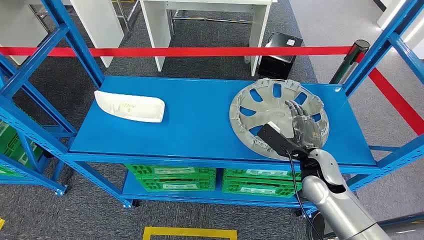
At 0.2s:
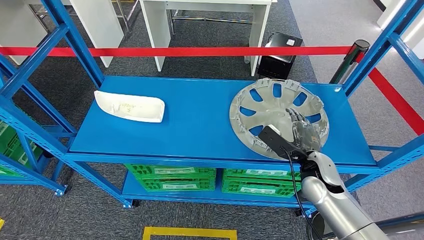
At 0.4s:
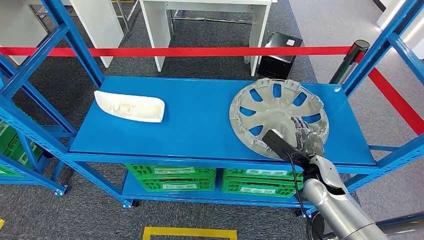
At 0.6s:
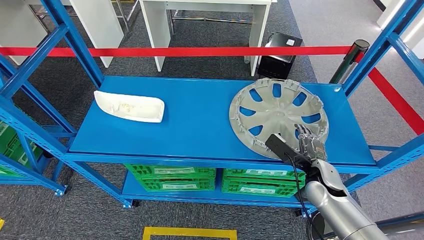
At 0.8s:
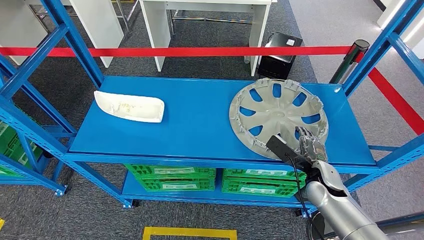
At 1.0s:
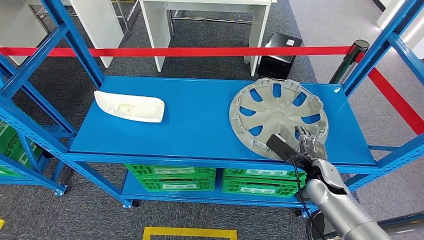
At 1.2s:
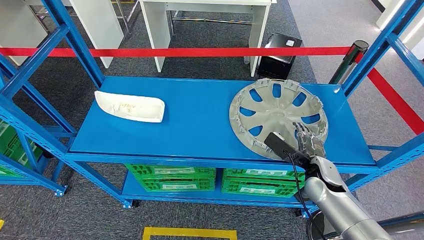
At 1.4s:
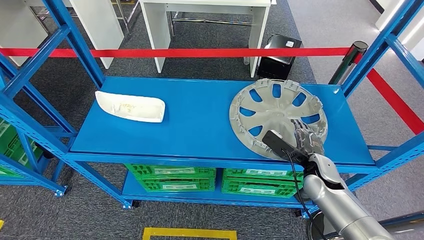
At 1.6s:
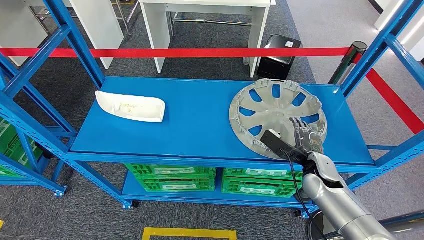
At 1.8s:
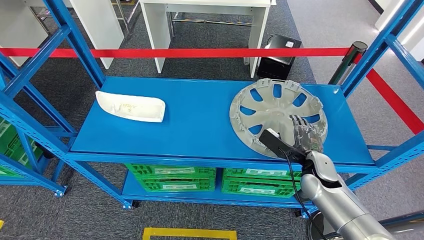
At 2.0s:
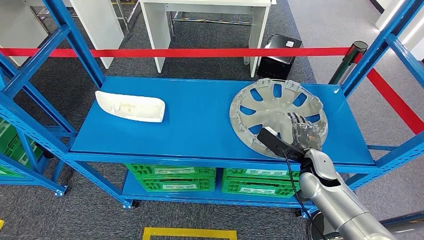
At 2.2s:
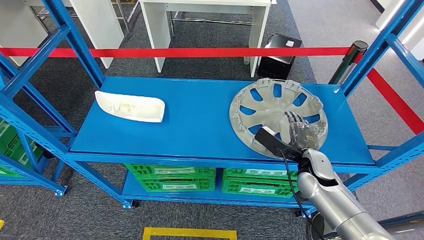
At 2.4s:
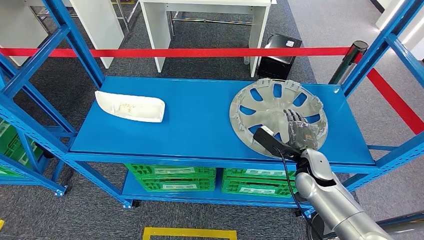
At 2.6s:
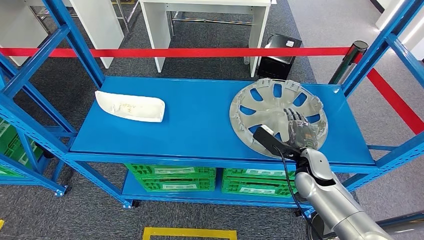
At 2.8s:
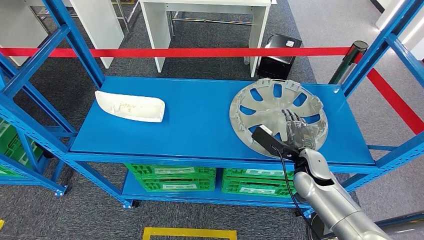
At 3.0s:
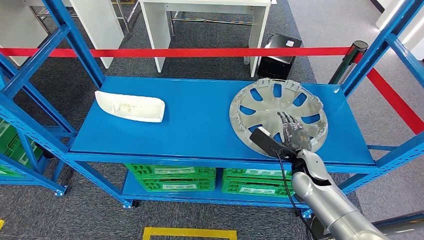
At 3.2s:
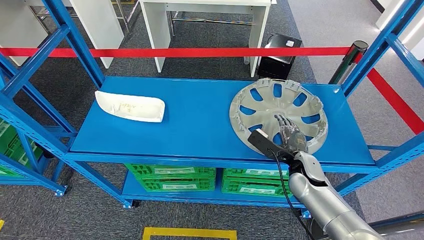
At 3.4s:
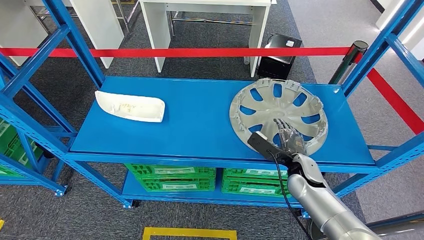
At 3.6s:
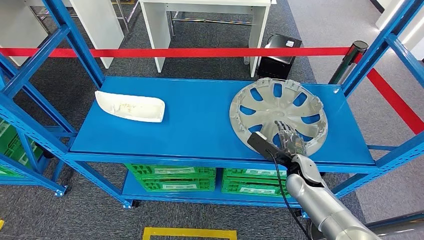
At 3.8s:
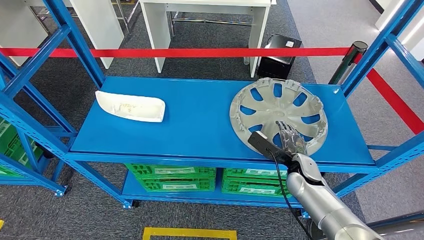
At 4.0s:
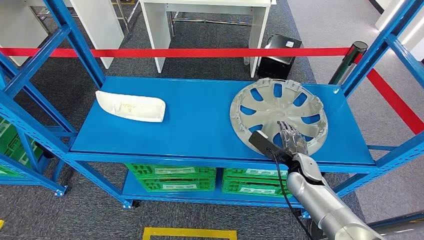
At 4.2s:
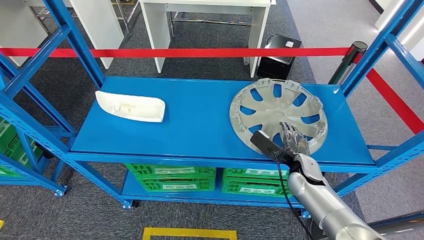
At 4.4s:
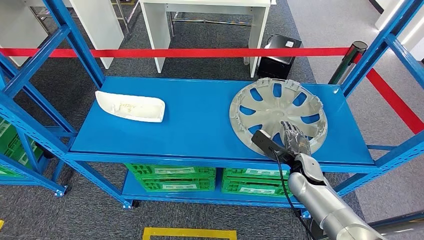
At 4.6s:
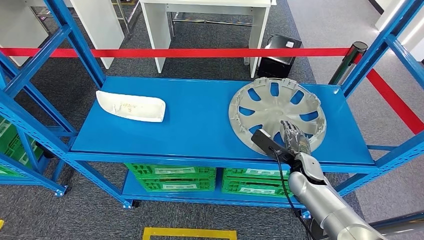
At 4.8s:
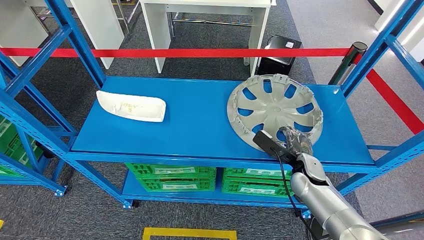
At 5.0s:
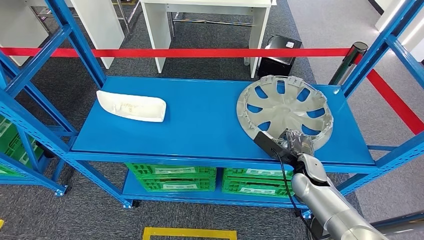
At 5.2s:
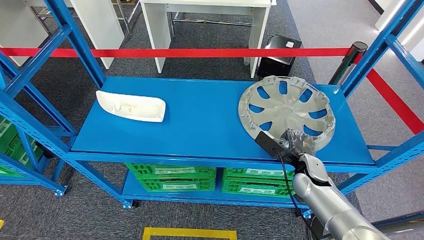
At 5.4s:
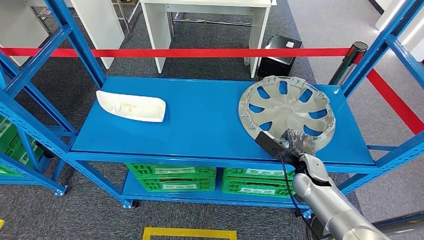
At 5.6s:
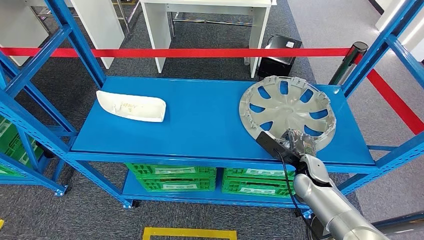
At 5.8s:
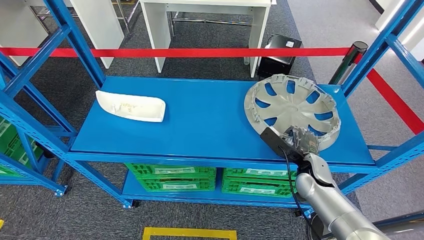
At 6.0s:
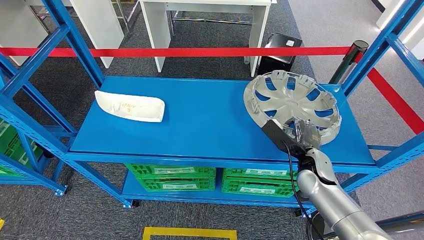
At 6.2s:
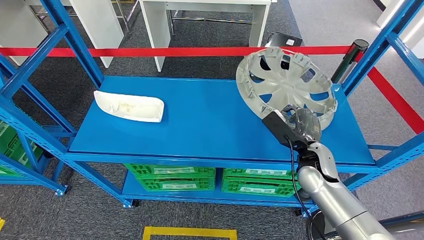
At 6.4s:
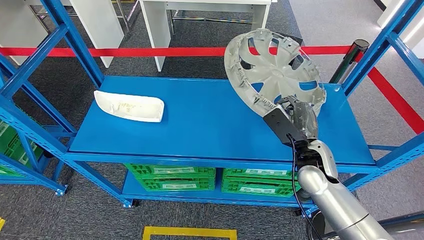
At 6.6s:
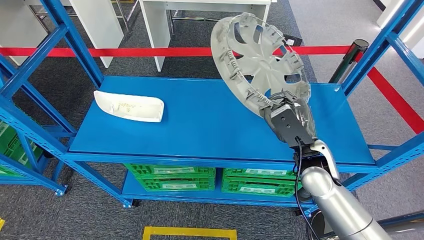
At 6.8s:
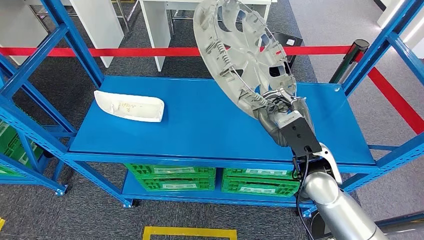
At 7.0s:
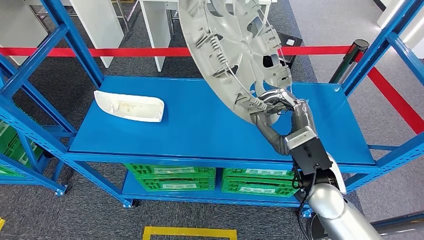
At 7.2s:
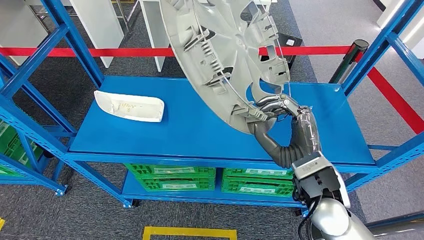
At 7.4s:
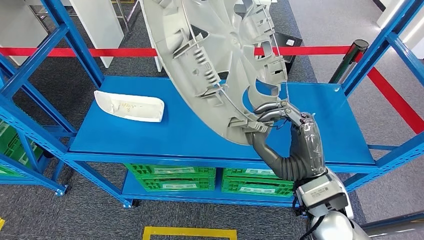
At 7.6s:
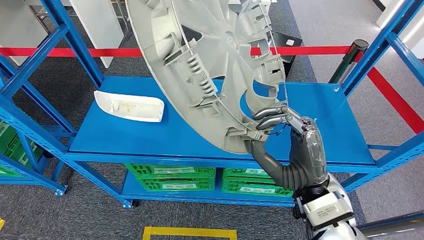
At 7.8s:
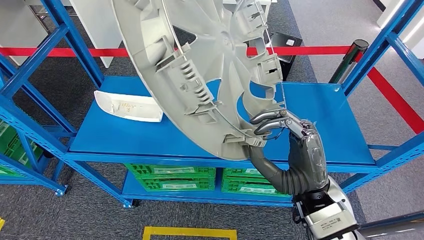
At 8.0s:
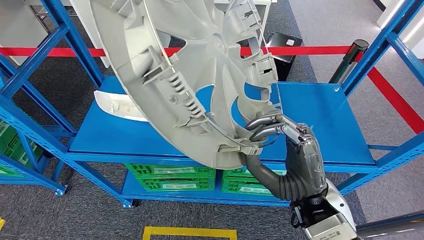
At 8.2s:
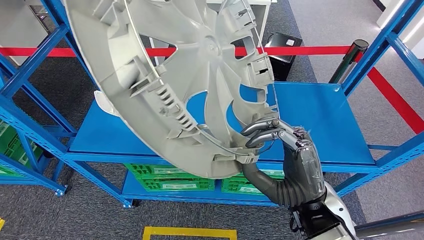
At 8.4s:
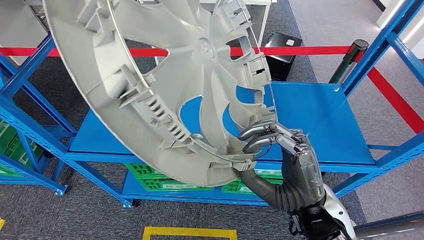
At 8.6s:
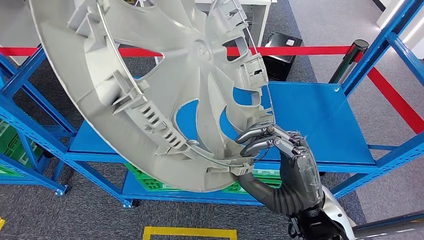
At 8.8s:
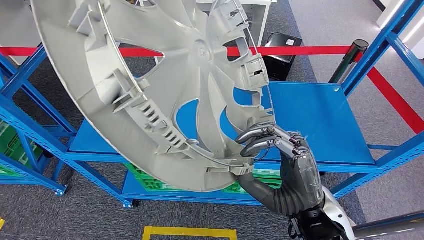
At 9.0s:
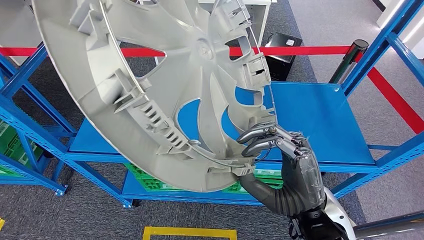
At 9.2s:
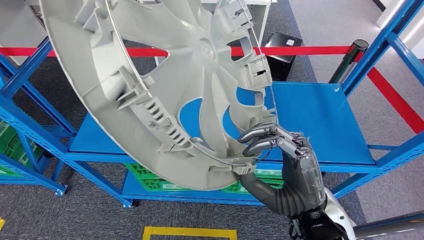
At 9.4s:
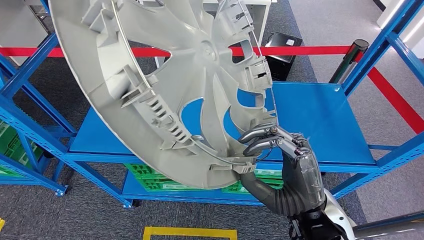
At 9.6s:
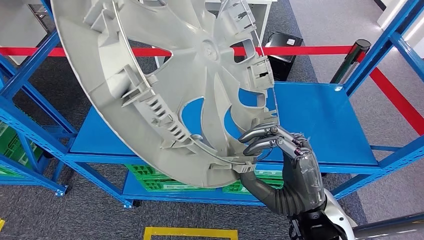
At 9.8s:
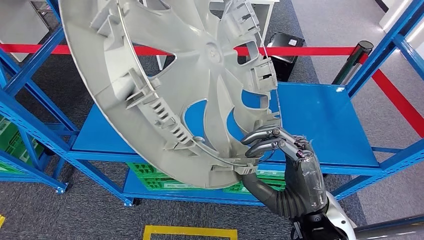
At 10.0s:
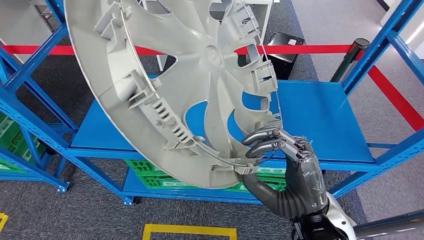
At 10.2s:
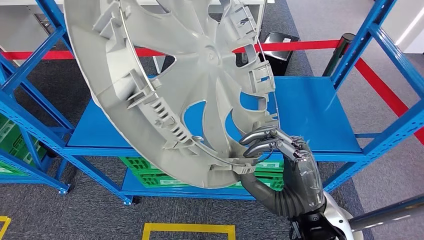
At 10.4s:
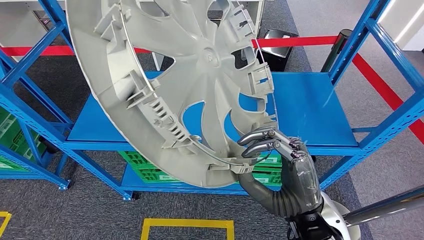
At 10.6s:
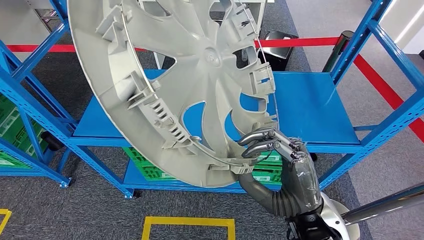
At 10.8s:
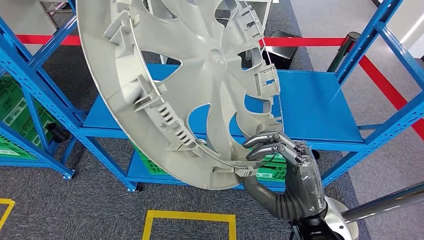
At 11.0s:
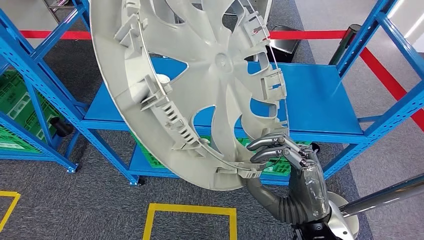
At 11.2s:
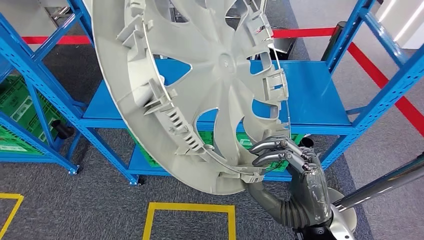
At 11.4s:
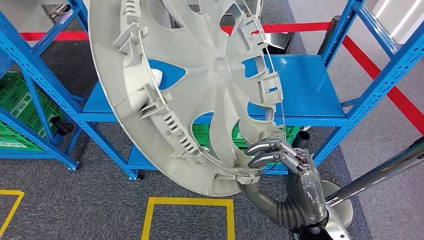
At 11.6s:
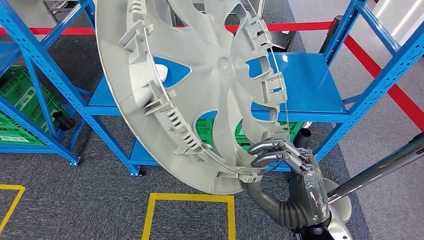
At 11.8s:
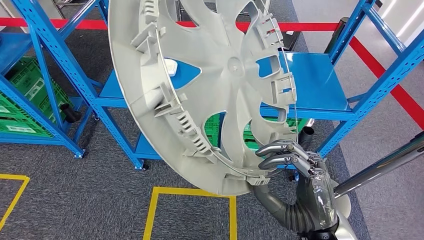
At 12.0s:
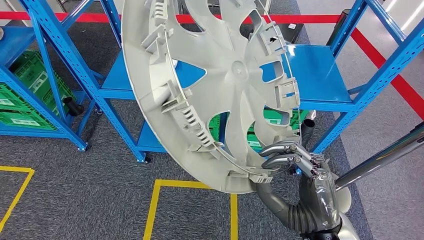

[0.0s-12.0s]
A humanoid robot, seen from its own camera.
Step, 0.0s to 9.0s: Pick up the large parts from the shelf.
1.6s to 6.0s: The hands stay close to where they were, moving slightly.

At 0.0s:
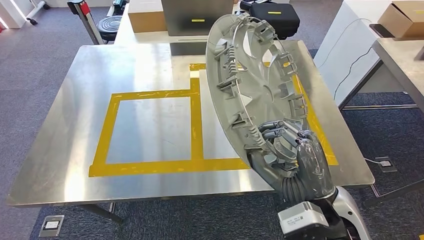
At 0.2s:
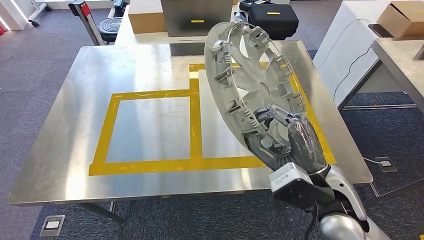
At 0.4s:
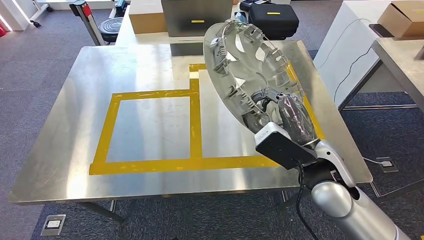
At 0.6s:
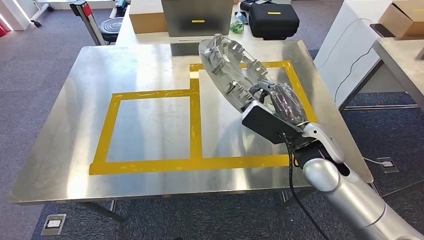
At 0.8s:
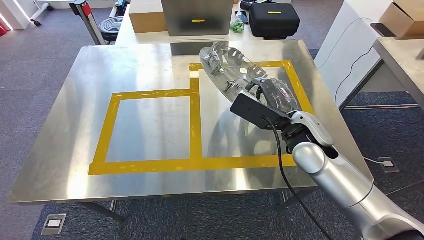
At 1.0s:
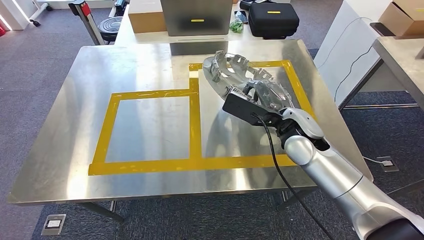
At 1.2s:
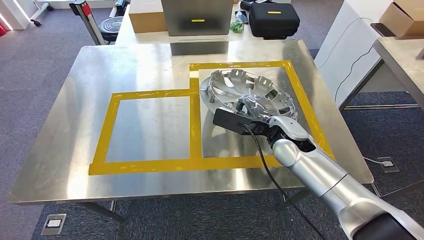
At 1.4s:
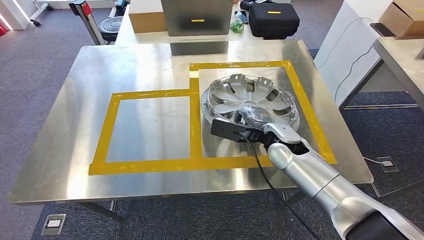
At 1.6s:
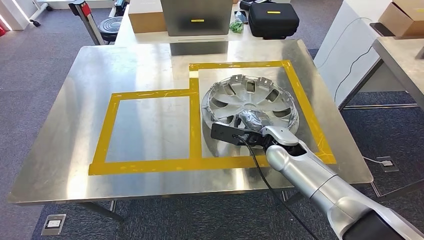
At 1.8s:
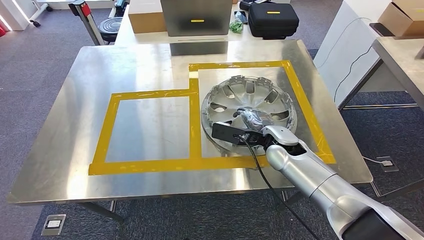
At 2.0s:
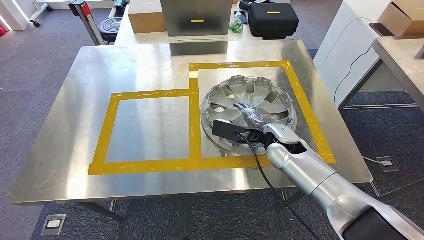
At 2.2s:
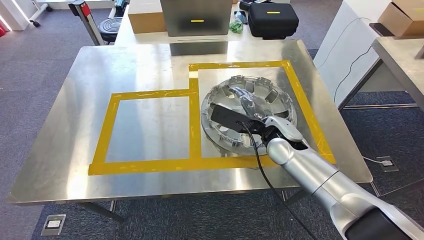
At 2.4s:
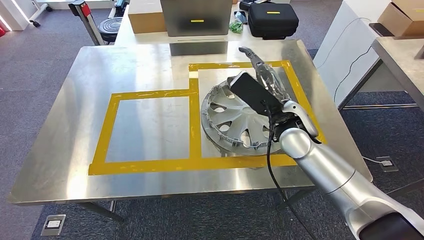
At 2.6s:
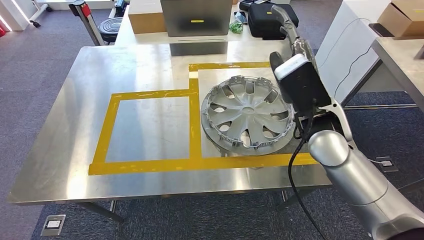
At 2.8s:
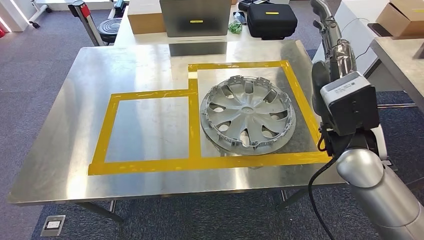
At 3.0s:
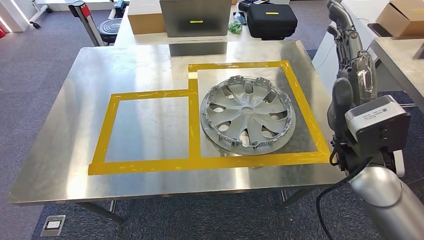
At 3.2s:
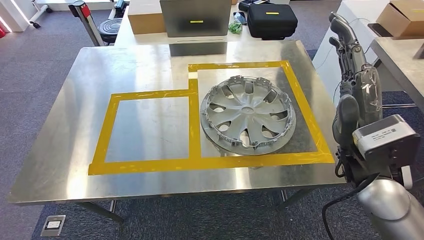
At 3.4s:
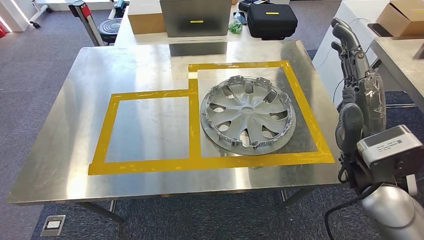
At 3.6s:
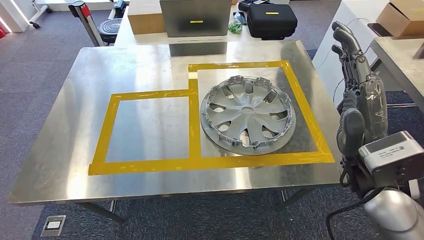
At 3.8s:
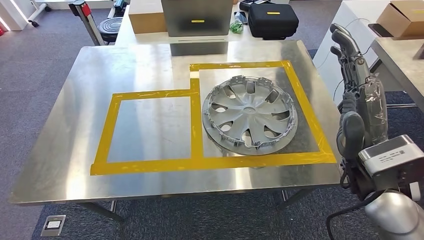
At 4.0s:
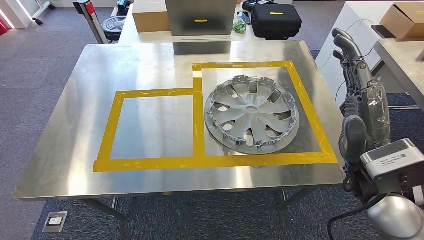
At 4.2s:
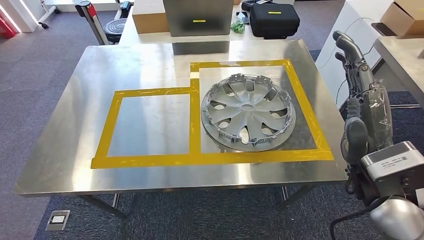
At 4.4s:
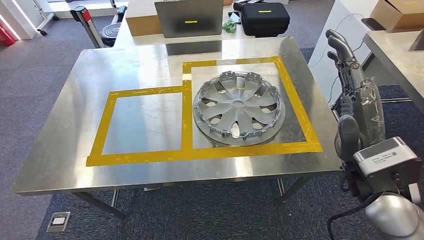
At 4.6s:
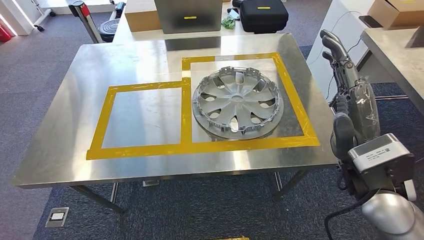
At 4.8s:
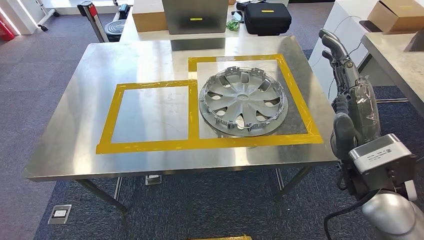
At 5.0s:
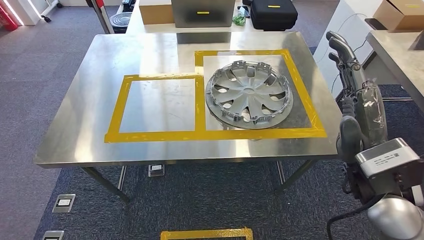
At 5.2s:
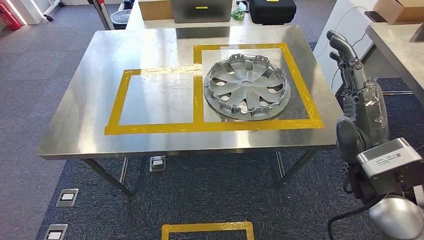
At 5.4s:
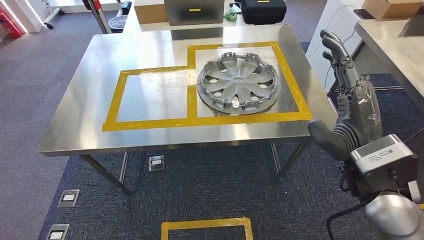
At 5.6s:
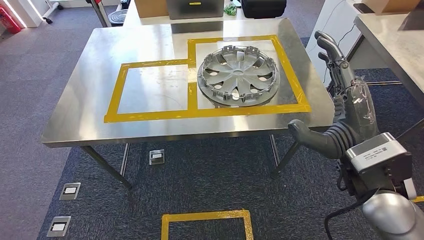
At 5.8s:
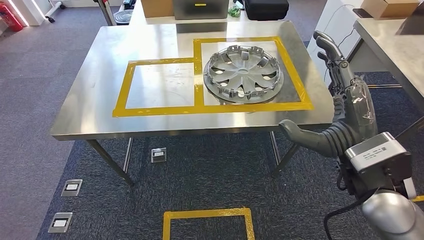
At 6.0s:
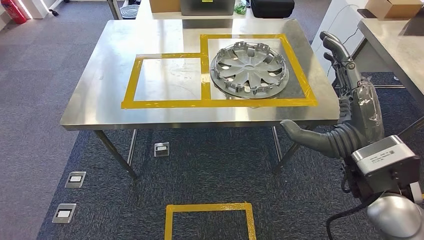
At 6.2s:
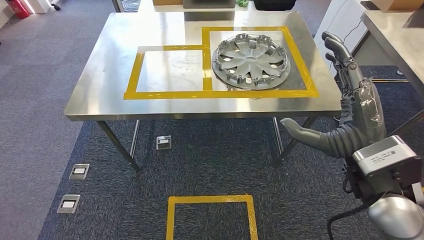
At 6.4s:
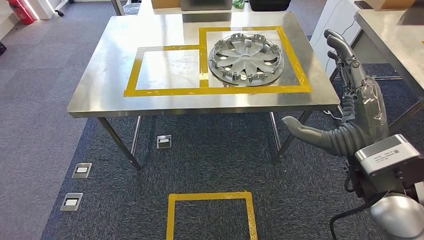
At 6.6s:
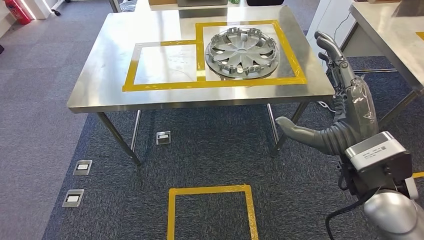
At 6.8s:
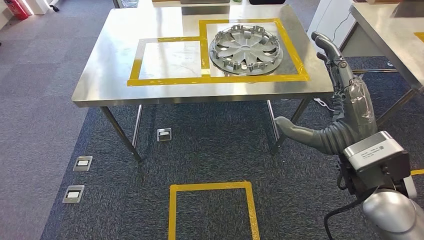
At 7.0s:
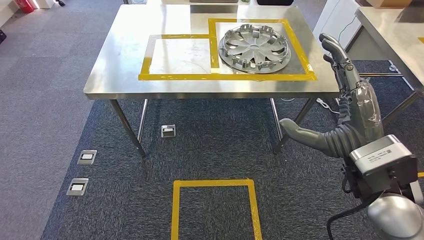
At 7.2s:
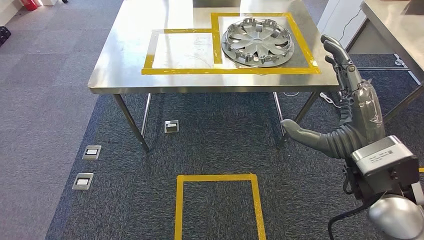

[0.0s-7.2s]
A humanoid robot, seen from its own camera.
Step, 1.2s to 4.8s: Insert the large parts into the corresponding slots on the workbench.
